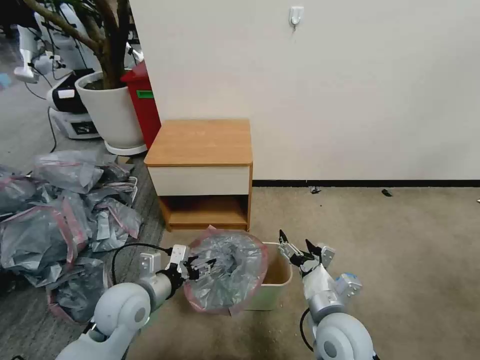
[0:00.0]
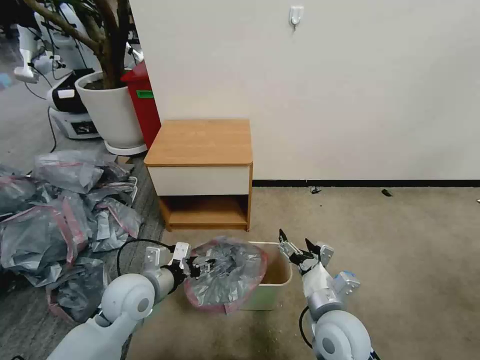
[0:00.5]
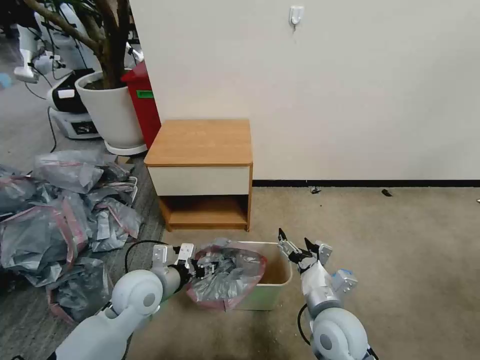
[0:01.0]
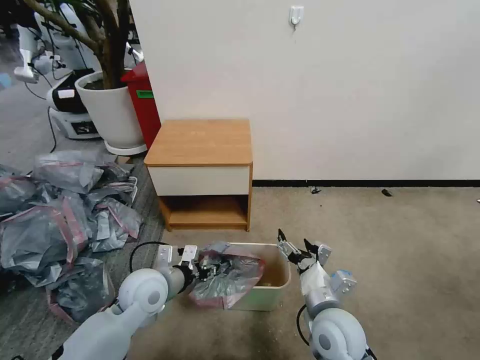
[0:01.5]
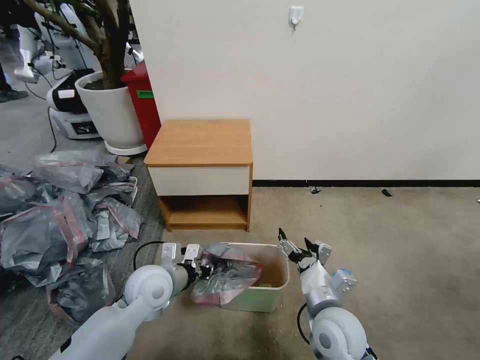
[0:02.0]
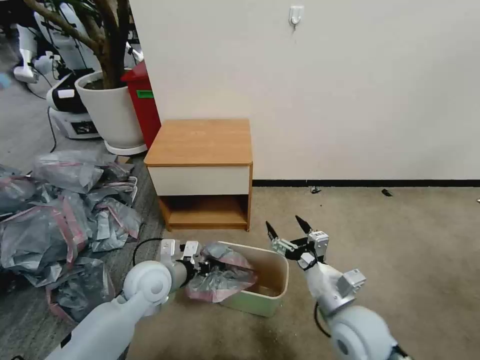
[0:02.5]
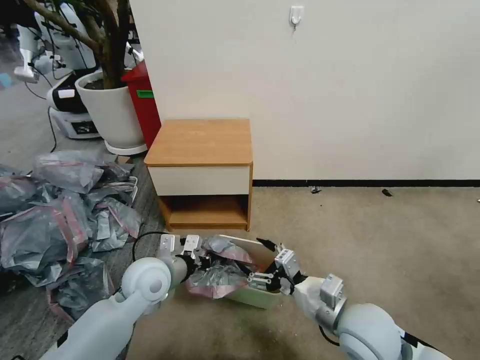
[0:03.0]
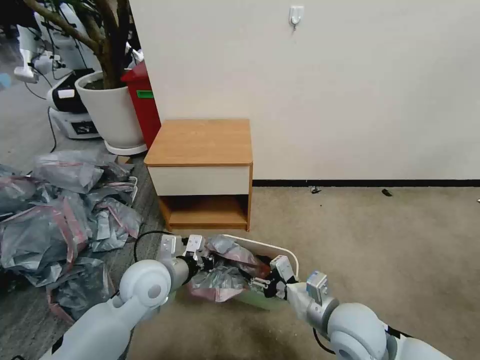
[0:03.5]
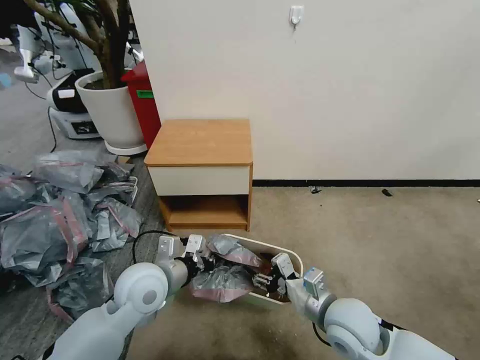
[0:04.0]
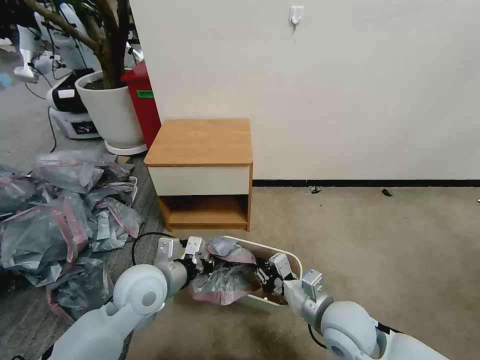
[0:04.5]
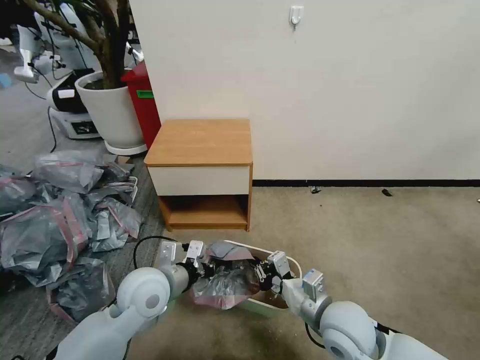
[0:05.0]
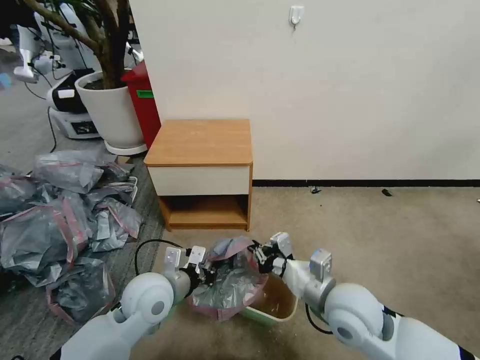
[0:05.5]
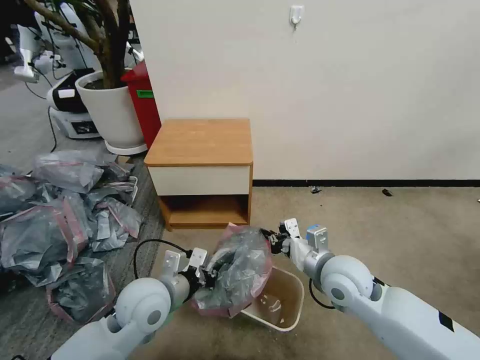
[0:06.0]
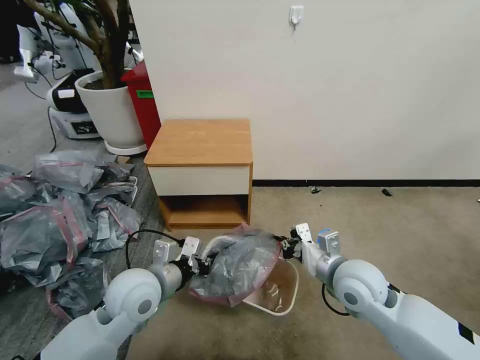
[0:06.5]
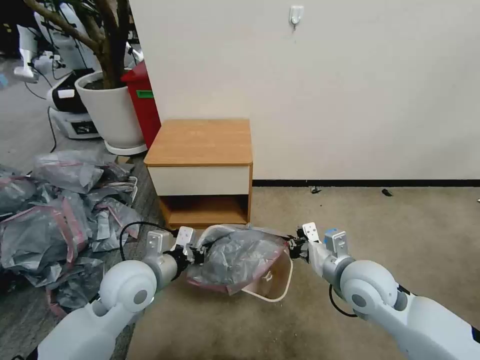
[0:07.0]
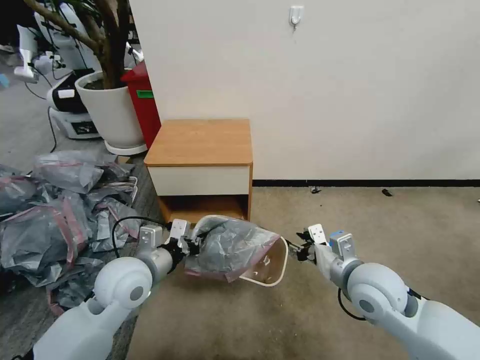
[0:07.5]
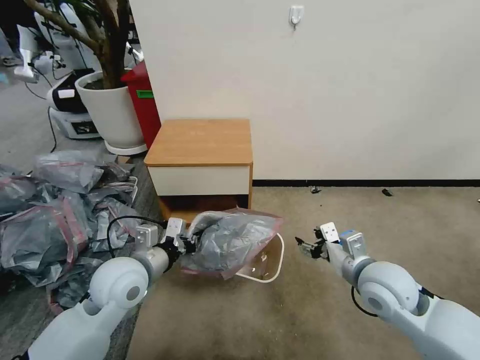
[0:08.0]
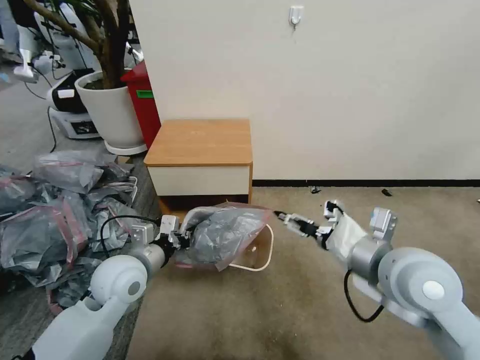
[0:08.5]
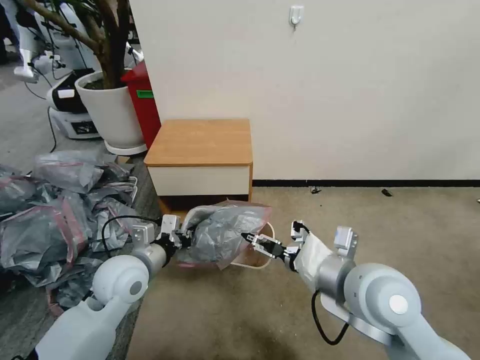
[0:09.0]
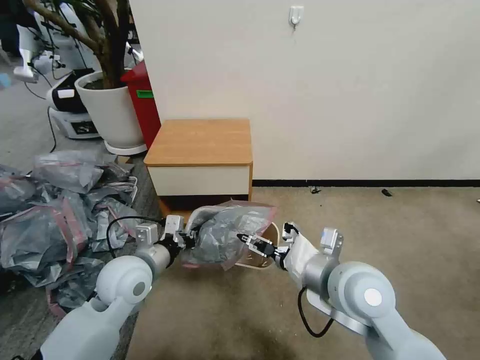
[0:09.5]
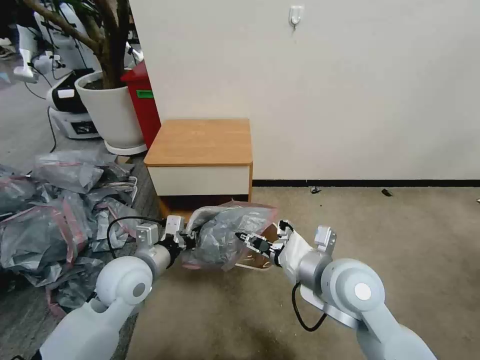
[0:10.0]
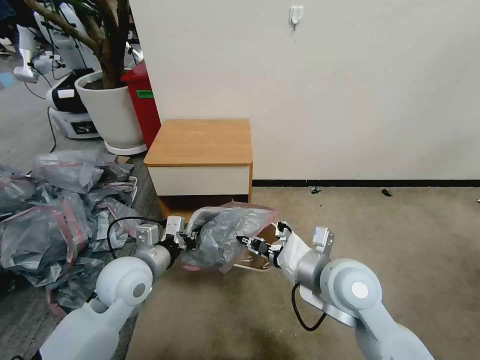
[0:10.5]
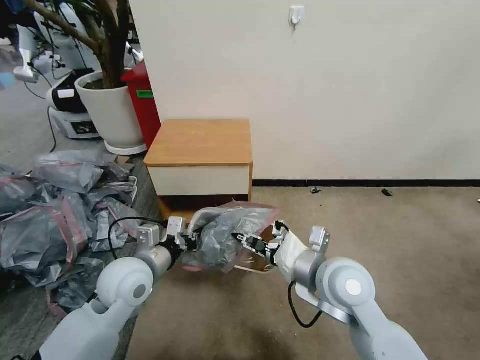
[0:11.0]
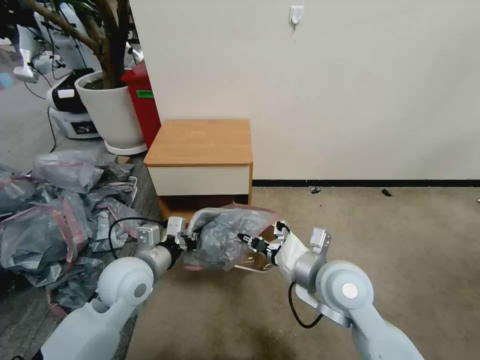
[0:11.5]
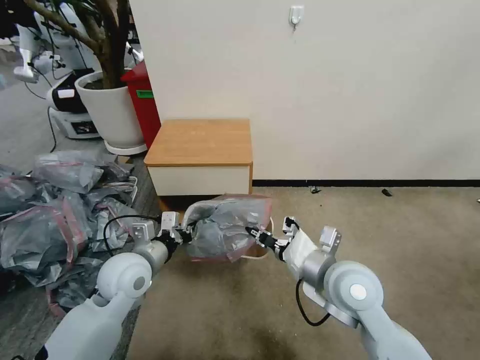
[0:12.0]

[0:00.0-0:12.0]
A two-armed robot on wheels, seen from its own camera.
Task of the whole recording: Pick up the garbage bag from the table and place it over the trash can.
0:00.0 to 0:02.0: The left gripper ends up about 5 cm from where it was, and closes its fingers.
0:02.0 to 0:04.0: The left gripper shifts approximately 5 cm upward.
0:04.0 to 0:06.0: The right gripper heads forward, covering roughly 5 cm, and closes its fingers.
0:06.0 to 0:08.0: The right gripper moves to the right, about 5 cm, and opens its fingers. Meanwhile the left gripper ends up approximately 5 cm from where it was.
0:08.0 to 0:10.0: The right gripper moves to the left and upward, roughly 10 cm.
0:10.0 to 0:12.0: The right gripper closes its fingers.

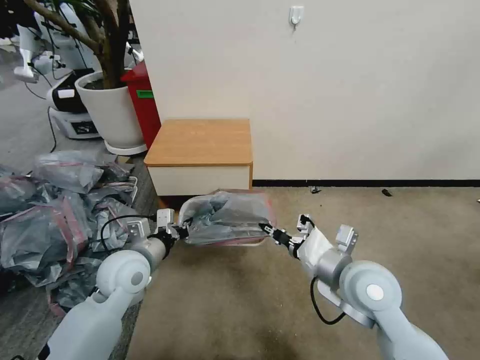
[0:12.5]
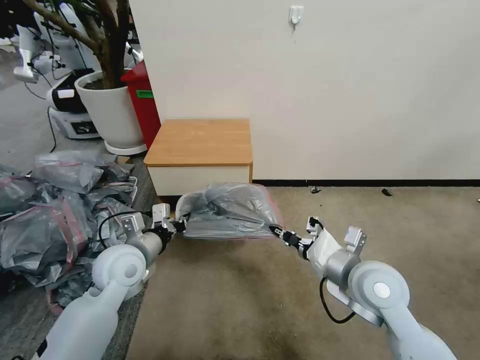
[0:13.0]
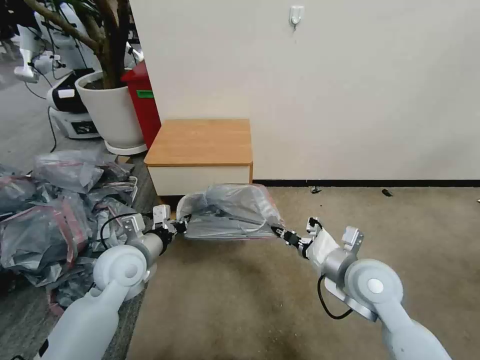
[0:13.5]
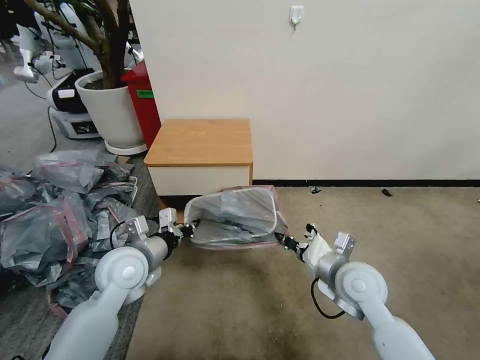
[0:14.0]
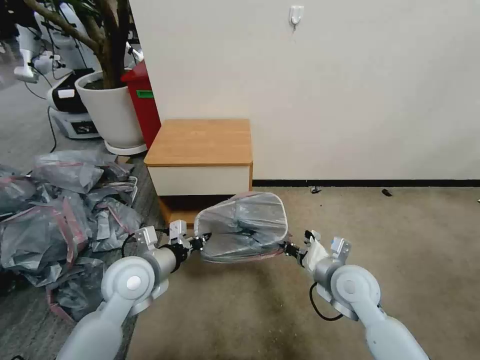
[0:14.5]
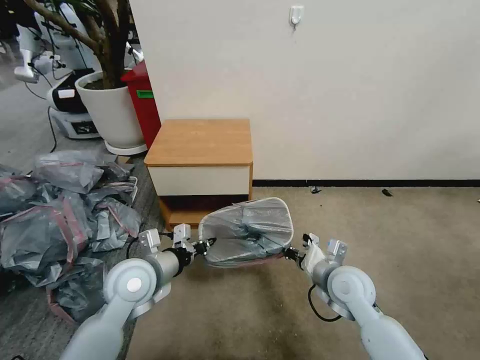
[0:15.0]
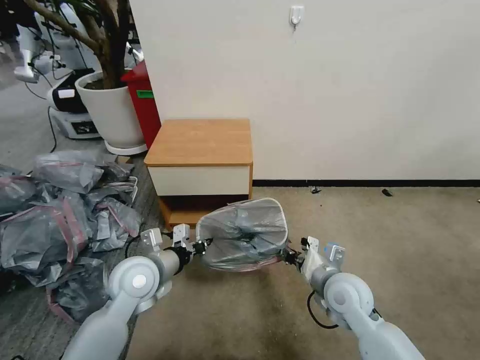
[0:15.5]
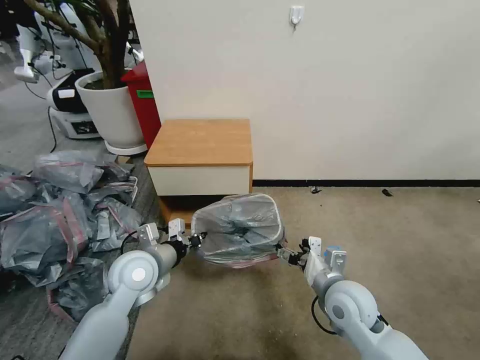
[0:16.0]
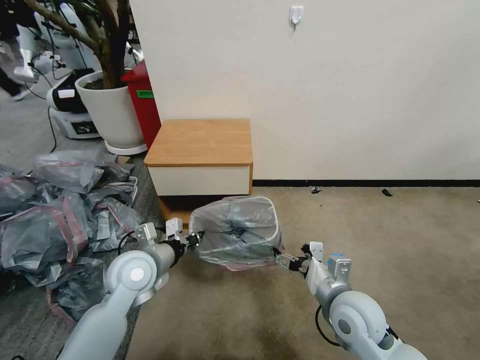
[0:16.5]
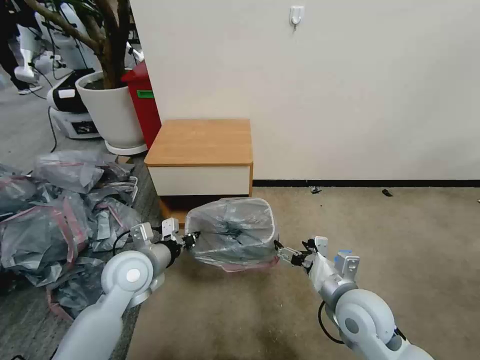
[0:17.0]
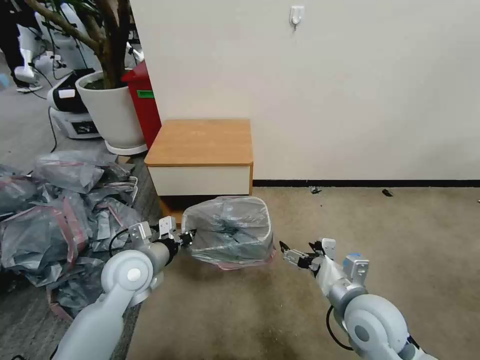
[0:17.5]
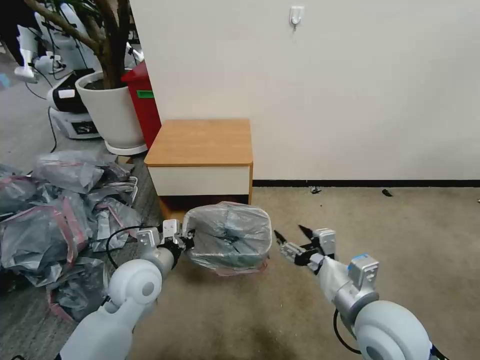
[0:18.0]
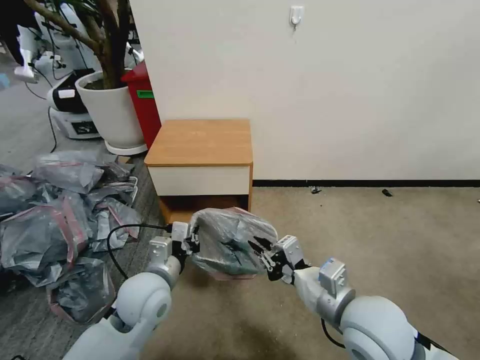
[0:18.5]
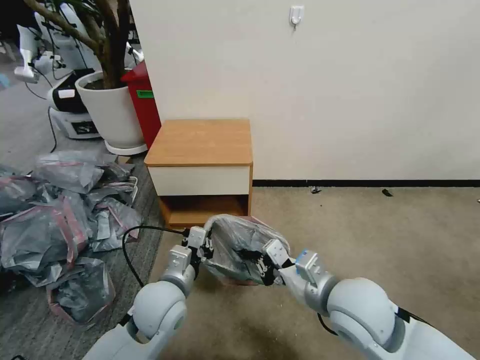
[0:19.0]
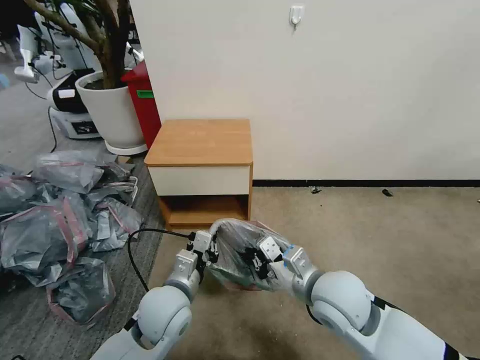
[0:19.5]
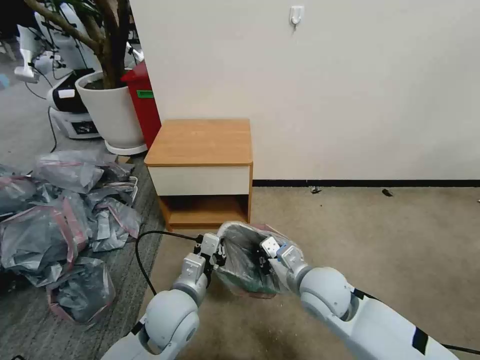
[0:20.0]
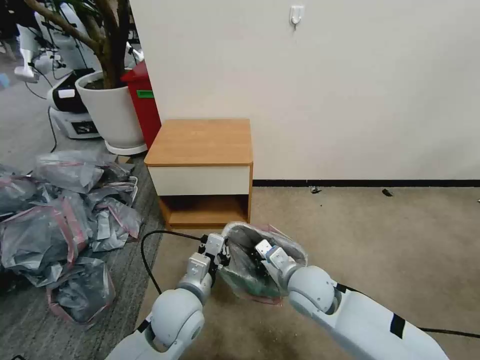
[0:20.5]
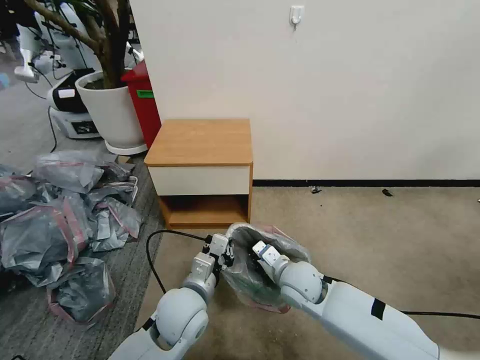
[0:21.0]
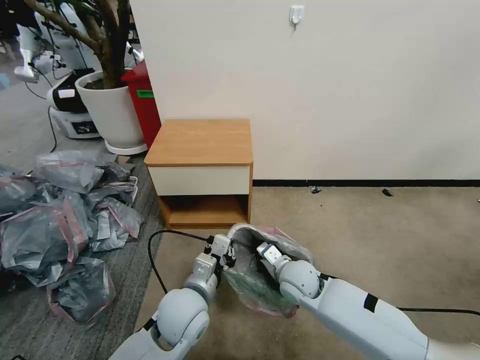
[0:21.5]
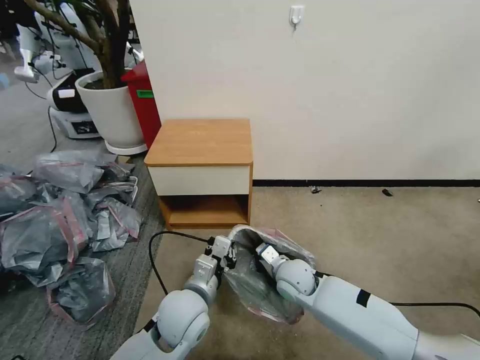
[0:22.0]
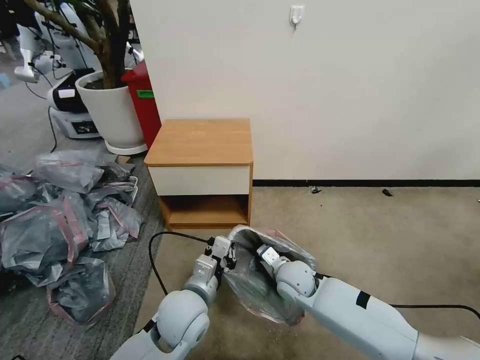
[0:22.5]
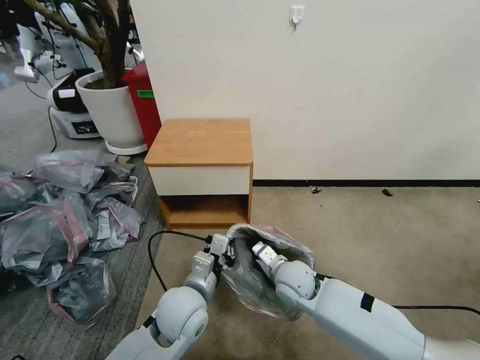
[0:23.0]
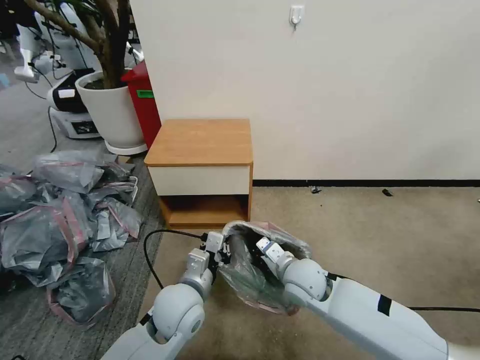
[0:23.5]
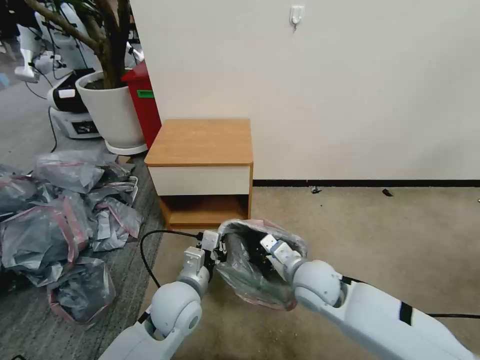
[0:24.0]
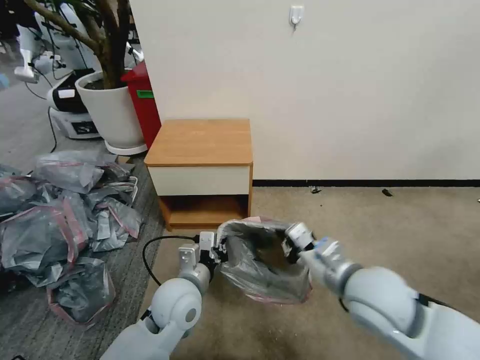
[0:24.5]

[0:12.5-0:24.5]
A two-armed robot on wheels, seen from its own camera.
Task of the whole recording: Pick up the garbage bag from the table and place it over the trash can.
0:12.5 to 0:14.5: The right gripper goes some 10 cm downward.
0:14.5 to 0:16.5: The right gripper goes about 5 cm backward, and opens up.
0:16.5 to 0:18.5: The left gripper changes place by approximately 5 cm. Meanwhile the right gripper heads upward, covering about 10 cm, and closes its fingers.
0:18.5 to 0:20.5: The right gripper moves downward, forward and to the left, about 15 cm. The left gripper goes some 5 cm to the right.
0:20.5 to 0:22.5: The right gripper heads downward, covering approximately 10 cm.
0:22.5 to 0:24.5: The right gripper shifts approximately 25 cm upward, backward and to the right.

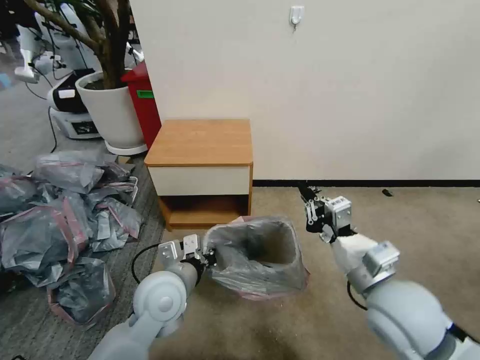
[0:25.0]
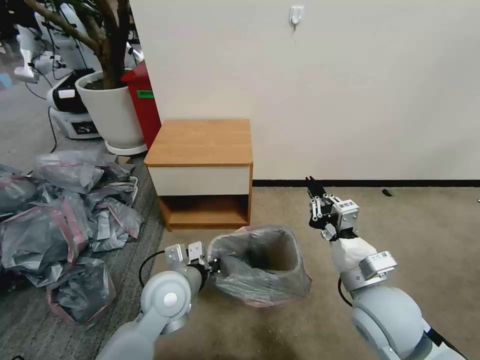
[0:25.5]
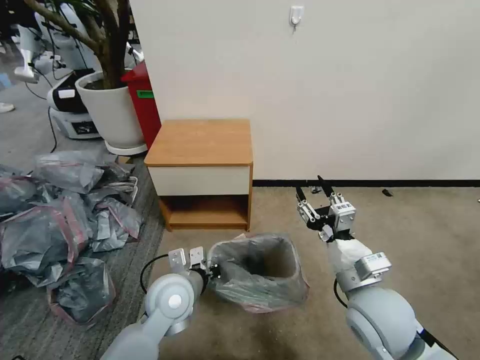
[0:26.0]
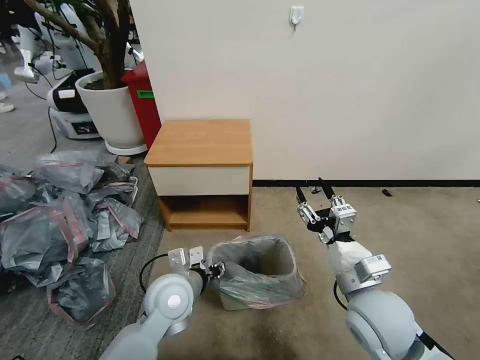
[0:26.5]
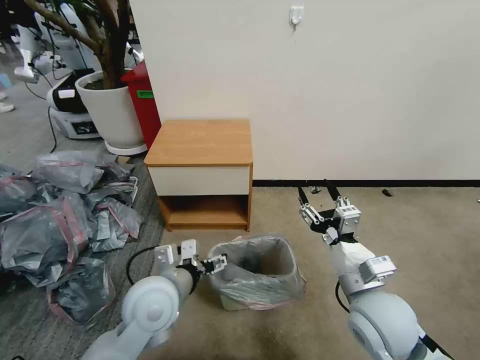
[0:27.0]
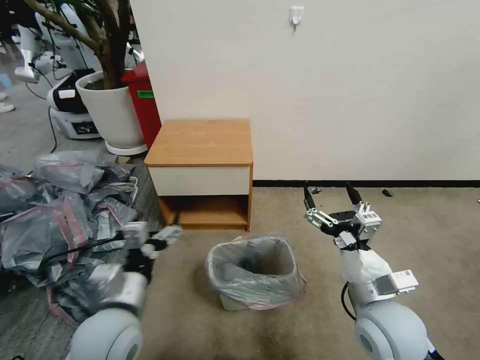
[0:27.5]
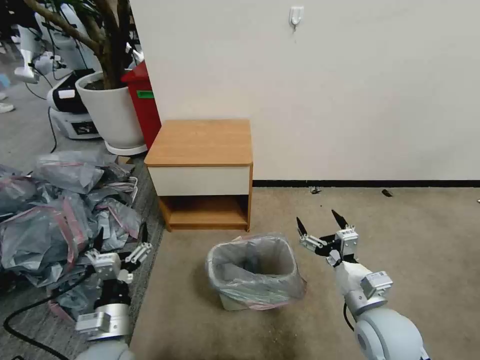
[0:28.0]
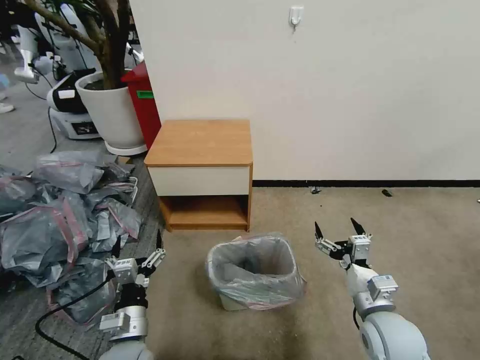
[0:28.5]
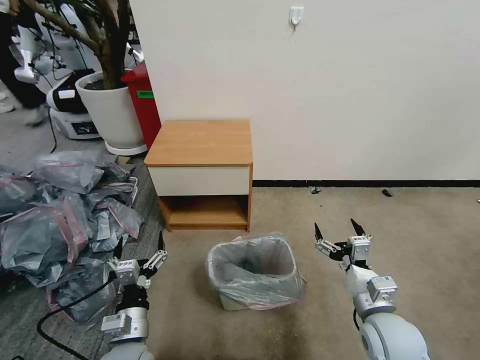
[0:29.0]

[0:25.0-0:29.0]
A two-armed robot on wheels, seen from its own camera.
Task of the whole recording: Pick up the garbage bag from the table and place it over the trash can.
0:25.0 to 0:27.0: The left gripper opens, while the right gripper opens.
0:27.0 to 0:29.0: The left gripper moves downward, backward and to the left, approximately 15 cm; the right gripper is displaced downward by approximately 10 cm, and opens up.
